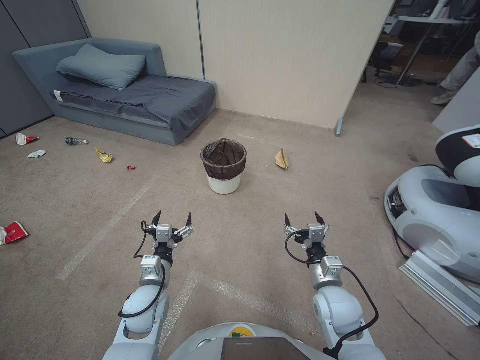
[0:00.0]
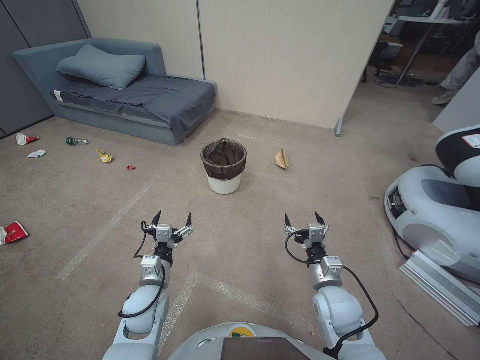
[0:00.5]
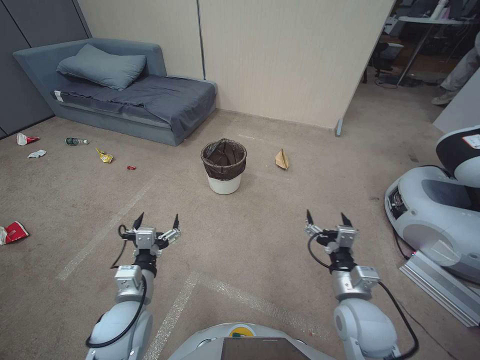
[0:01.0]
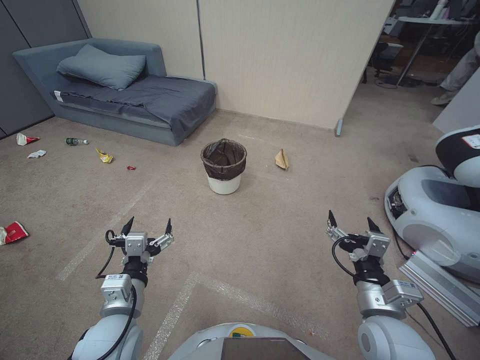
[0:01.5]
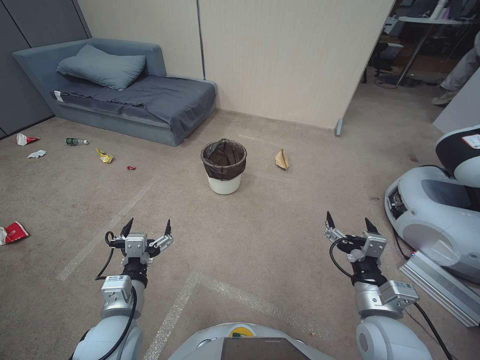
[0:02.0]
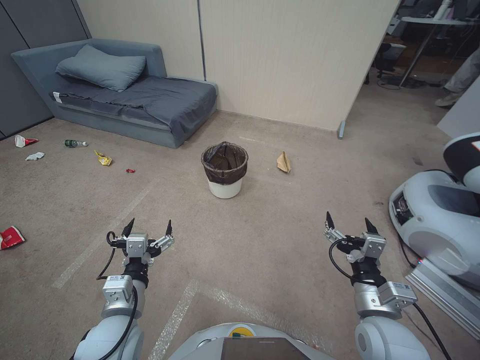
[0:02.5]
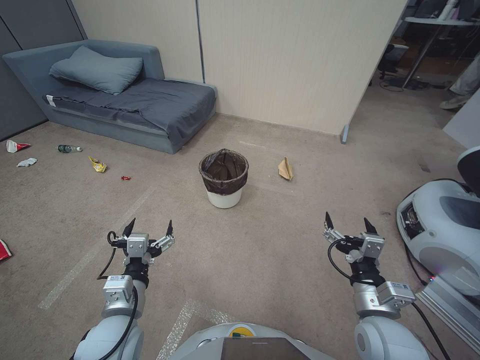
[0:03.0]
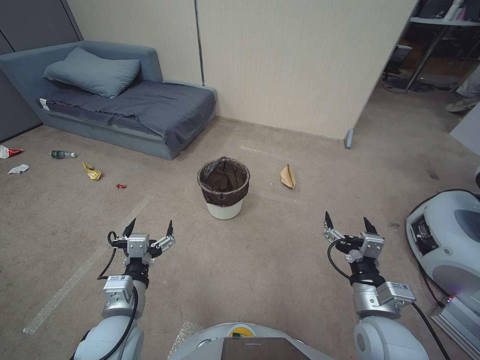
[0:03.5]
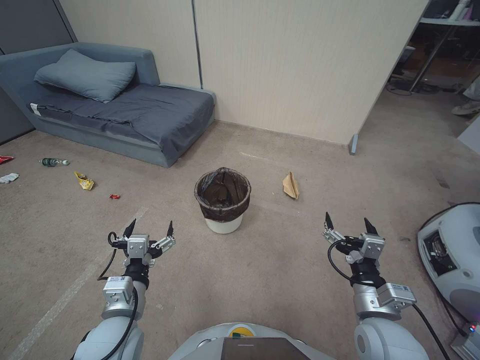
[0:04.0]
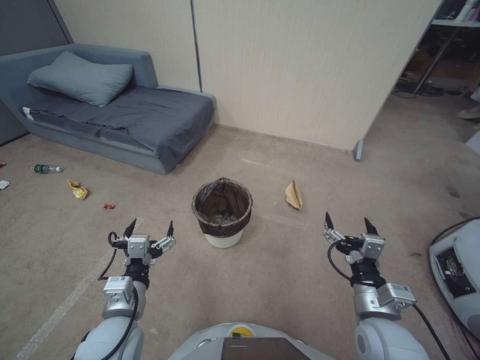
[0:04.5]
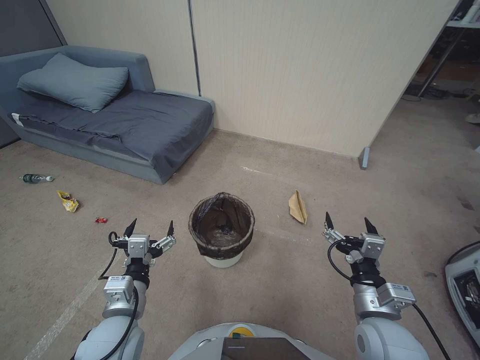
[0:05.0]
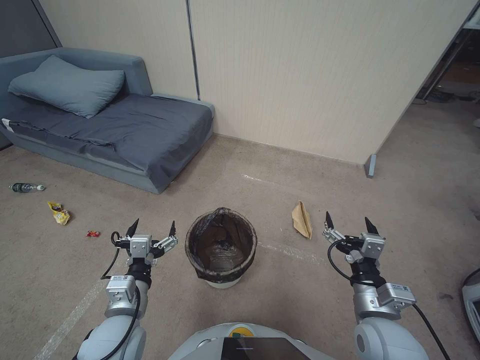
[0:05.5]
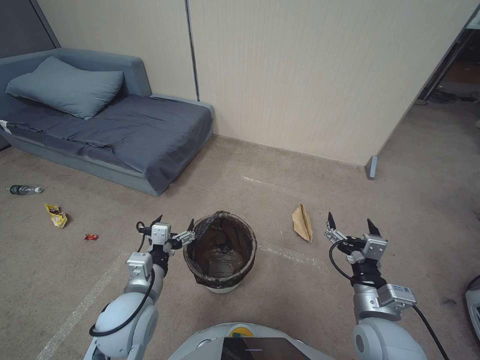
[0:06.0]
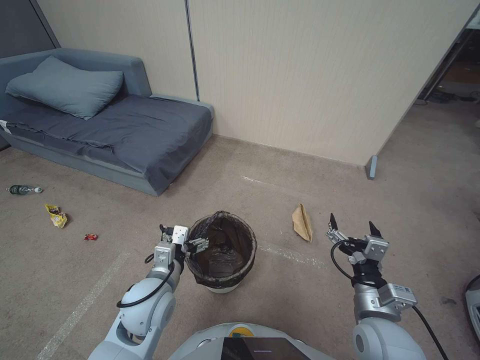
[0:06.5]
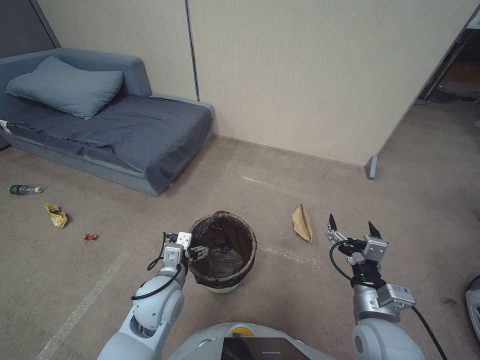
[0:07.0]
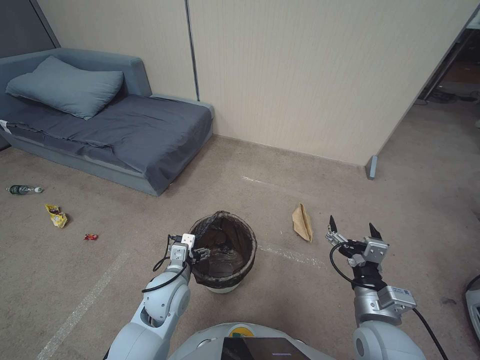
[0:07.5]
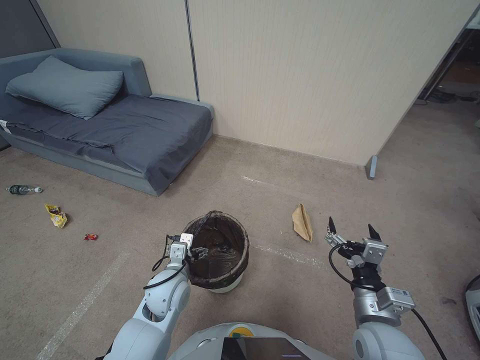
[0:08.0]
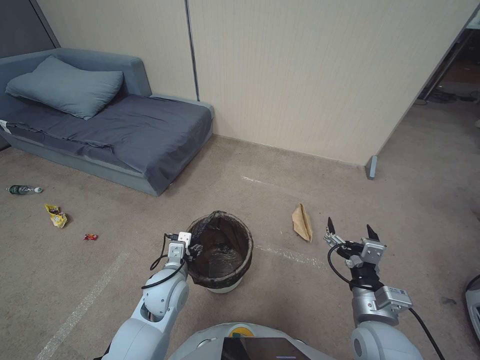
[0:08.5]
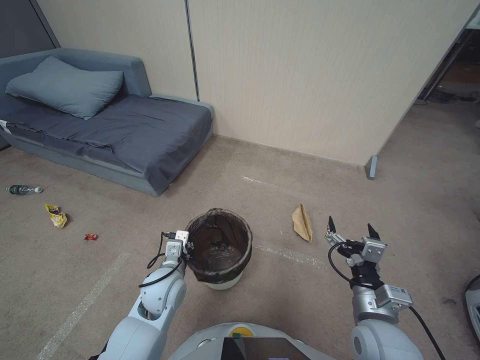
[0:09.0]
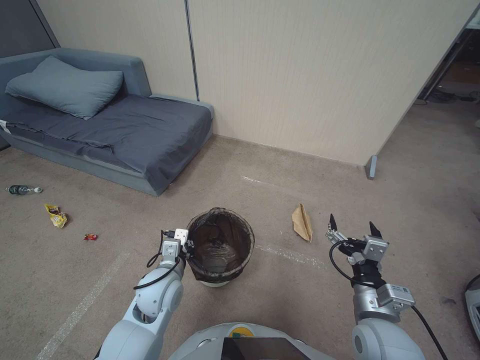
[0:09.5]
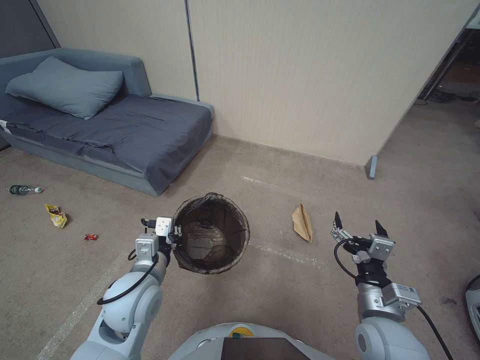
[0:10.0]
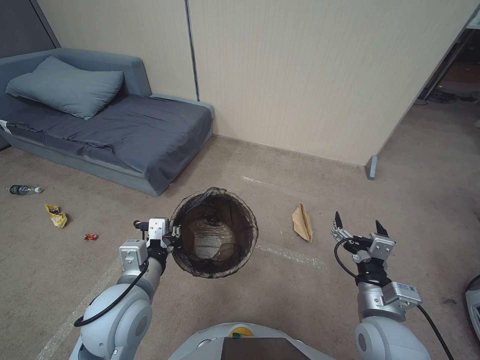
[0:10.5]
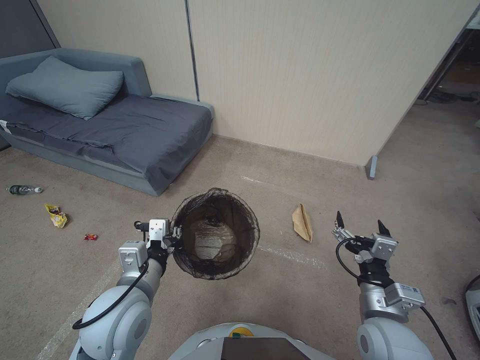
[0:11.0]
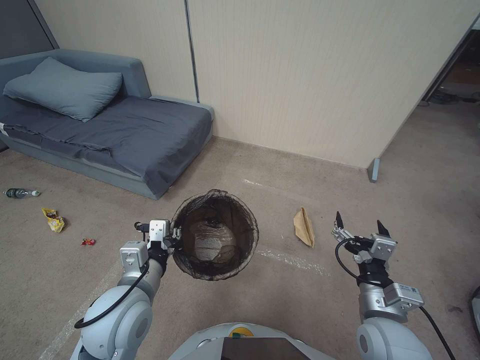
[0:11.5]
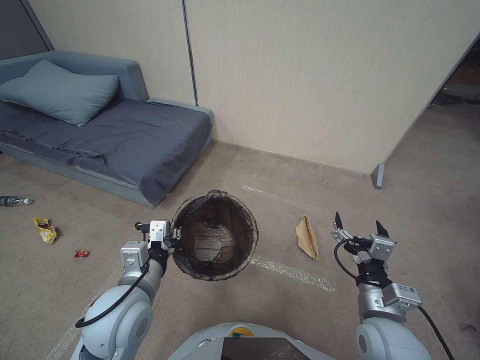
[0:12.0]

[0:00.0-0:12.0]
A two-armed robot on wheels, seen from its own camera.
Task of the whole recording: Pick up the trash bin, then pick up the garbage from the floor and place it into the trash bin.
0:06.0 to 0:08.0: The left gripper travels forward and downward by some 10 cm.
0:08.0 to 0:10.0: The left gripper shifts approximately 10 cm upward, and closes.
0:10.0 to 0:12.0: The left gripper moves some 5 cm.

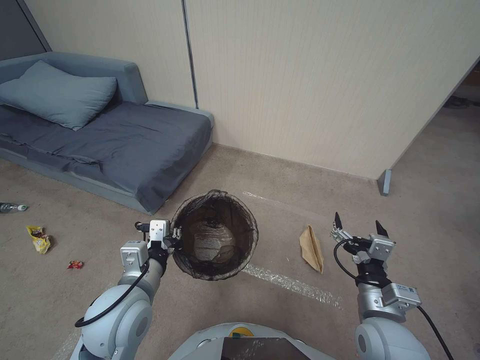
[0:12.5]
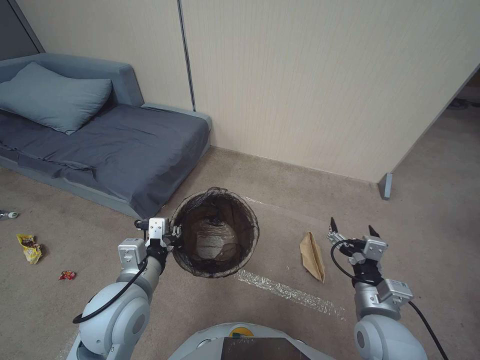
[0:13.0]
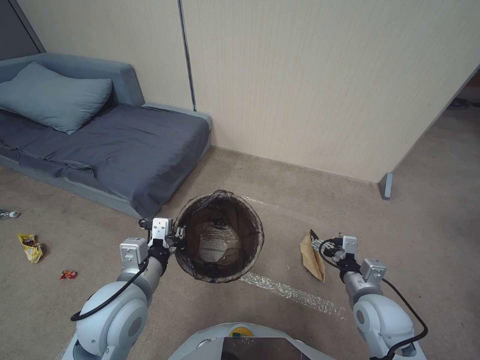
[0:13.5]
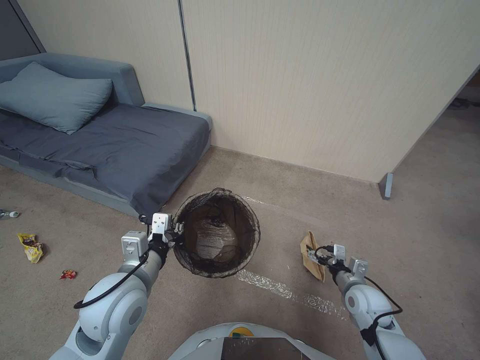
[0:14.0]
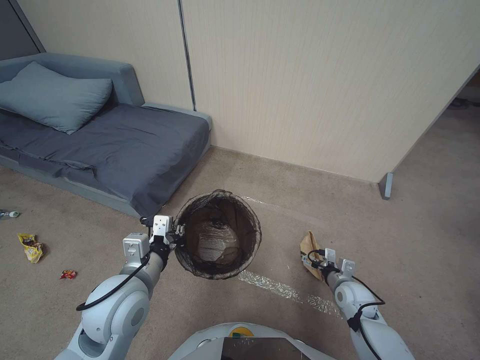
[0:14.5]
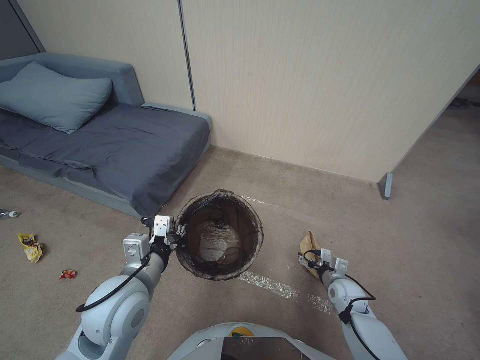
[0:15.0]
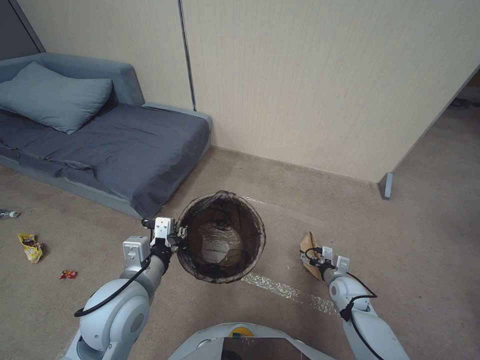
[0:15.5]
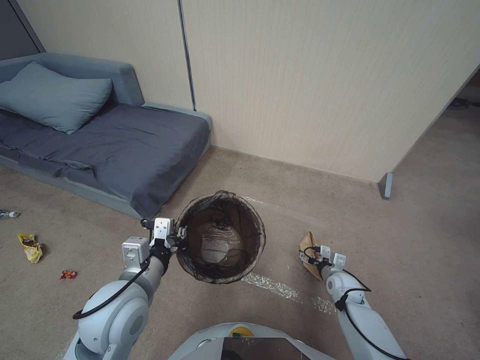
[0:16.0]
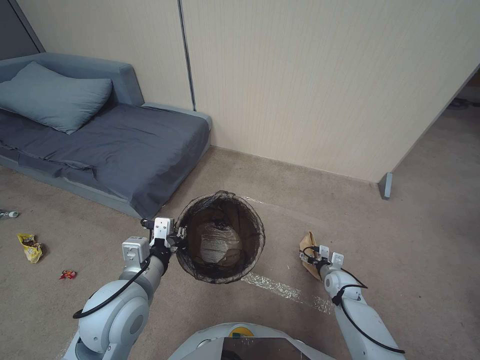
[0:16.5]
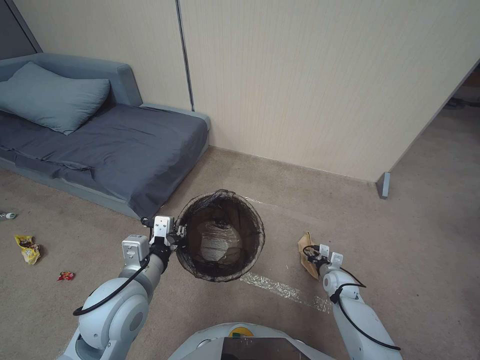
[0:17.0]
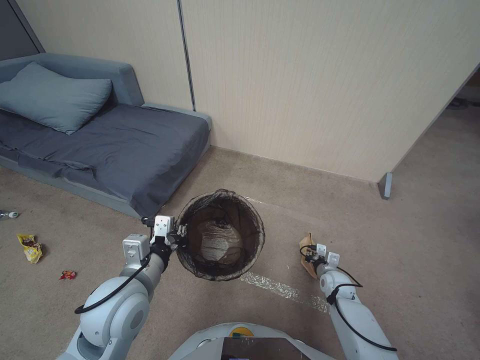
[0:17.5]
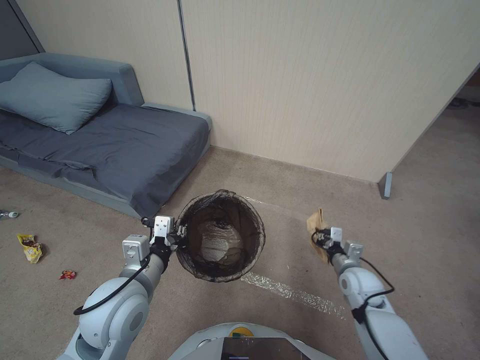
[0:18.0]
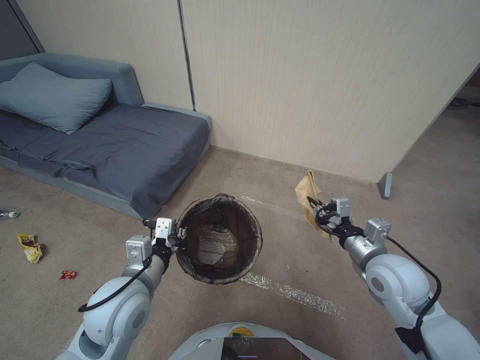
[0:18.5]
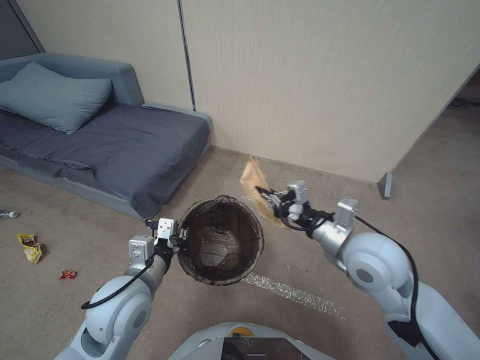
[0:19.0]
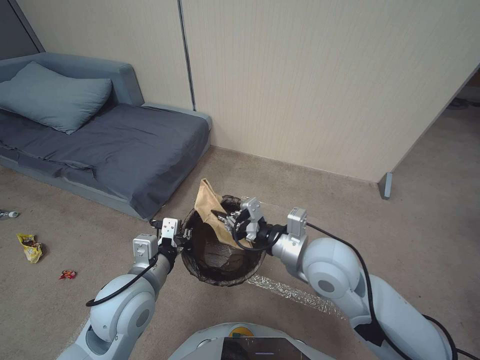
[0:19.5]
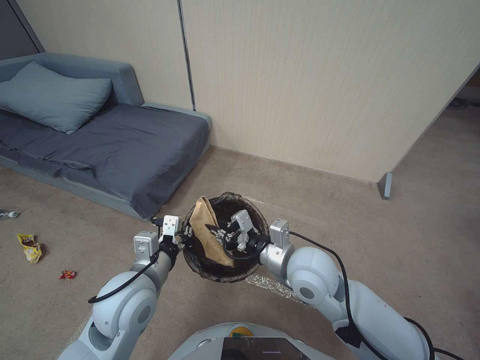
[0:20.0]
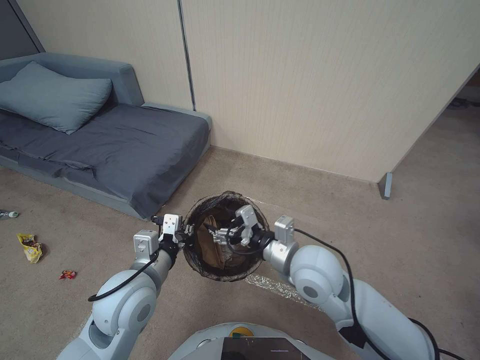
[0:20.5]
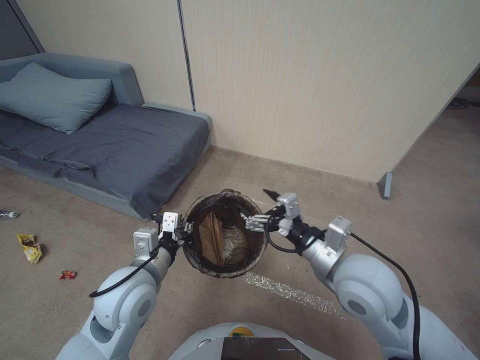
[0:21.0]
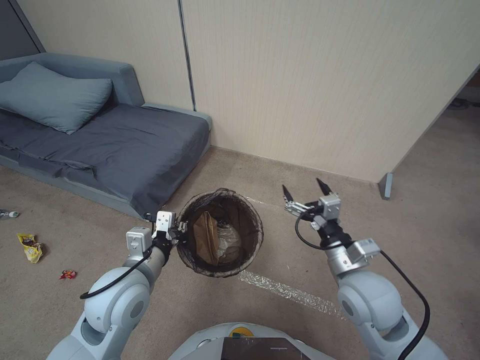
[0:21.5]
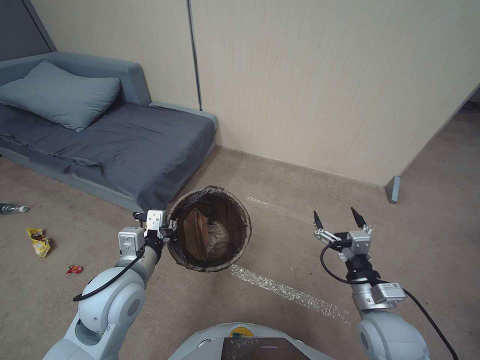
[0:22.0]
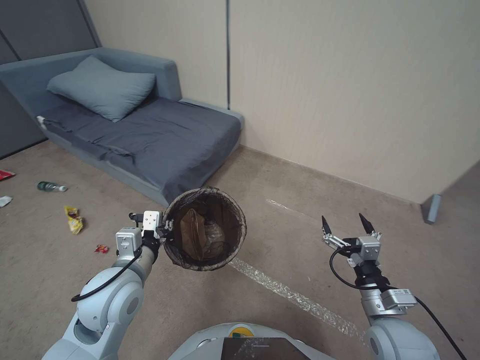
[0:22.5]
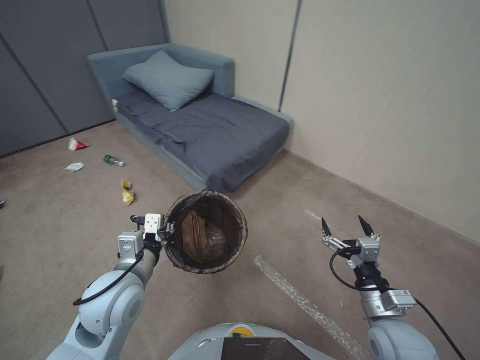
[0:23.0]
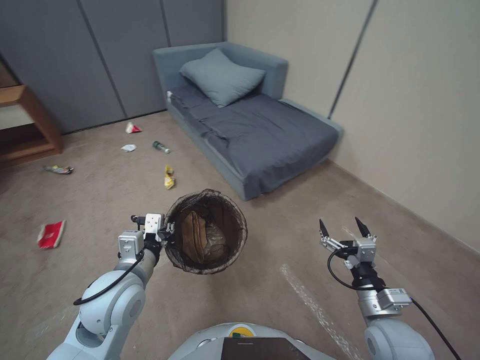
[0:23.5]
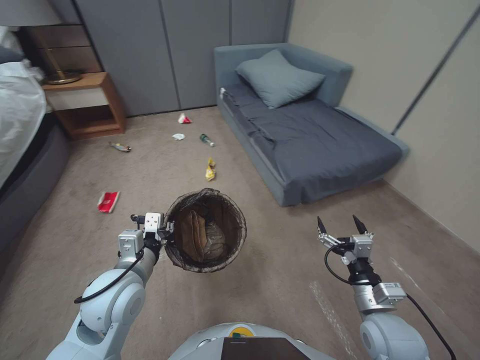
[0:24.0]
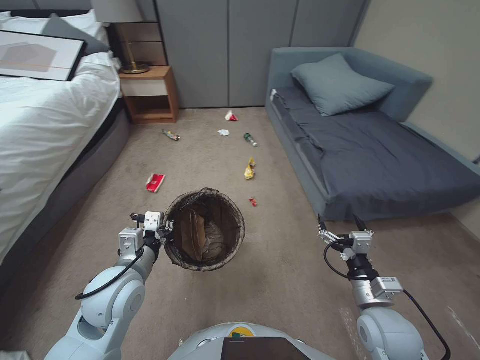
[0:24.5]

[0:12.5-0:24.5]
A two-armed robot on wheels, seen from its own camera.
Task of the whole recording: Pick up the trash bin, then pick up the garbage from the floor and place it into the trash bin.
0:12.5 to 0:14.5: The right gripper goes roughly 25 cm downward, forward and to the right.
0:14.5 to 0:16.5: The right gripper shifts roughly 5 cm downward.
0:16.5 to 0:18.5: The right gripper goes about 25 cm upward, and closes its fingers.
0:18.5 to 0:20.5: The right gripper goes about 20 cm to the left, and opens.
0:20.5 to 0:22.5: The right gripper goes approximately 20 cm to the right, backward and downward.

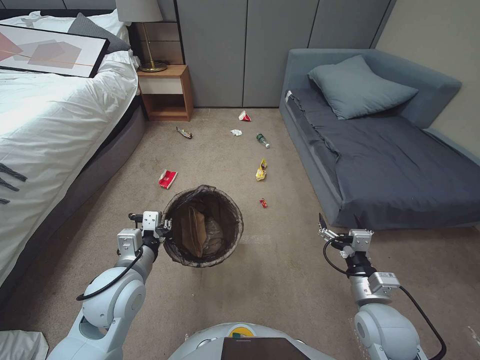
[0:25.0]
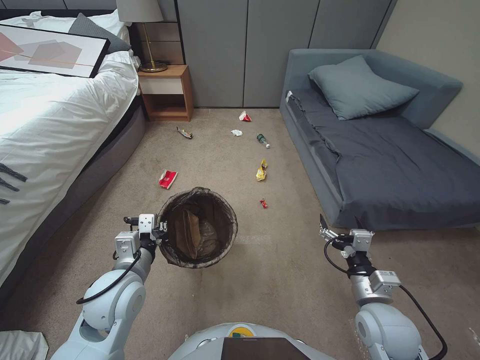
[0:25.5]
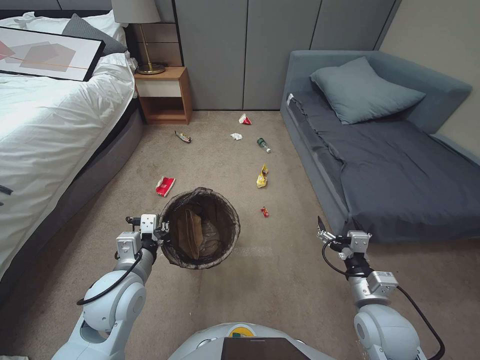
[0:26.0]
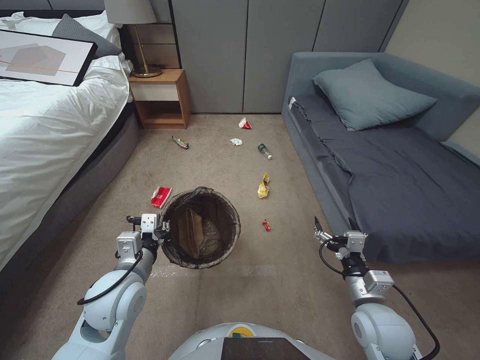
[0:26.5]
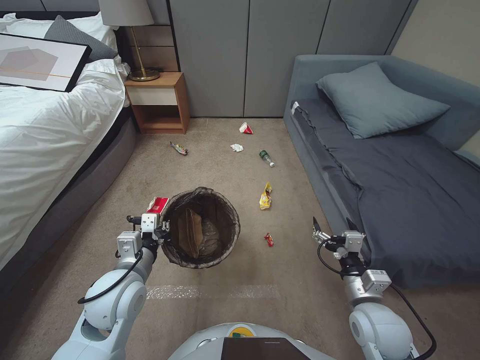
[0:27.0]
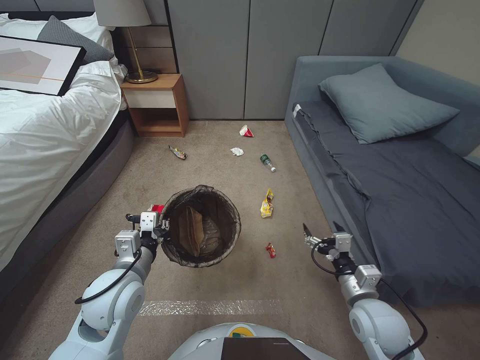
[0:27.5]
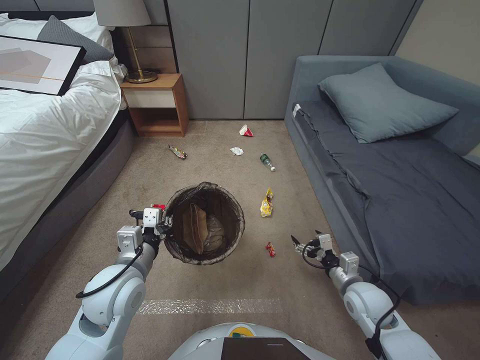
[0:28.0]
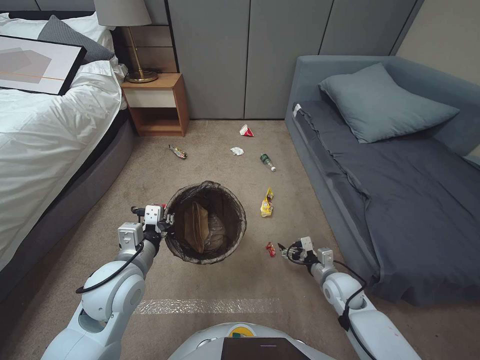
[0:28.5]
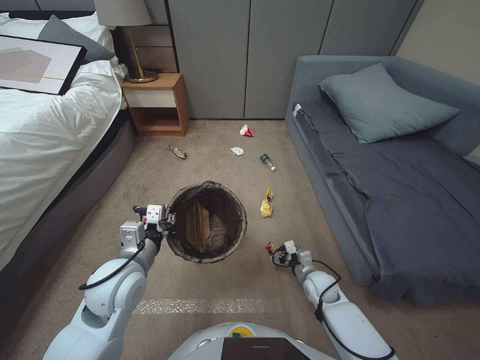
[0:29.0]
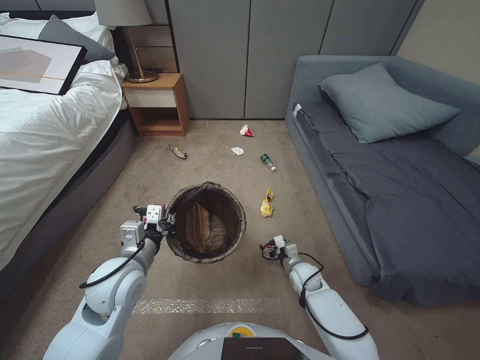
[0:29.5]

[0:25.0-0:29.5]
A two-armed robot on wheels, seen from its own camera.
Task of the whole recording: Pick up the trash bin, then pick up the garbage from the floor and place it into the trash bin.
0:27.0 to 0:29.5: The right gripper moves downward and forward, some 25 cm.
